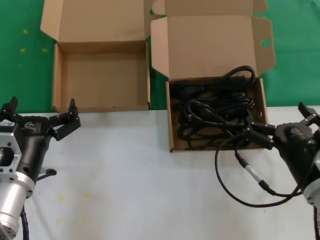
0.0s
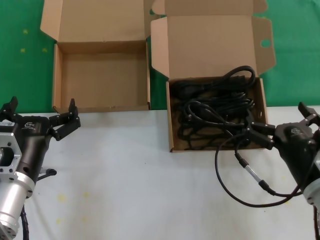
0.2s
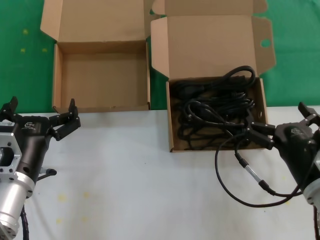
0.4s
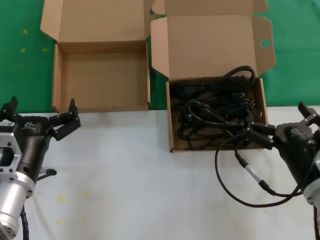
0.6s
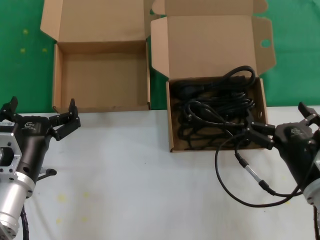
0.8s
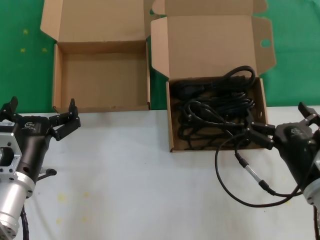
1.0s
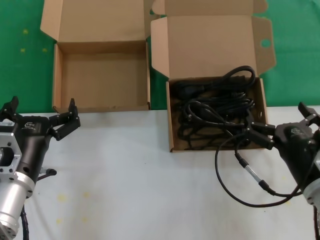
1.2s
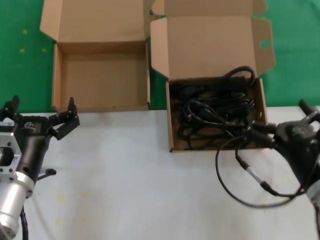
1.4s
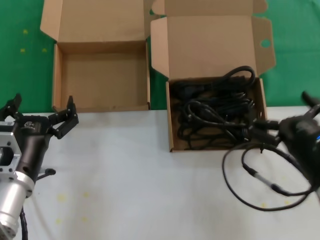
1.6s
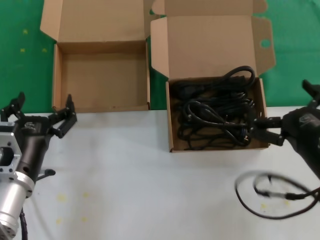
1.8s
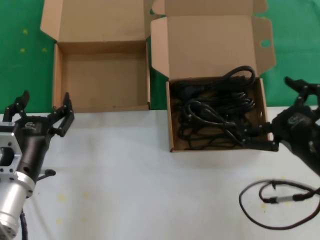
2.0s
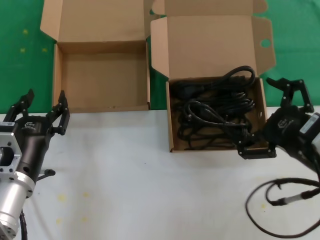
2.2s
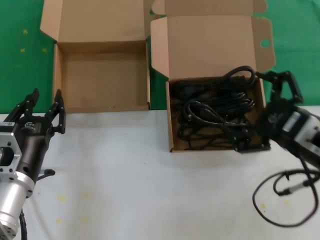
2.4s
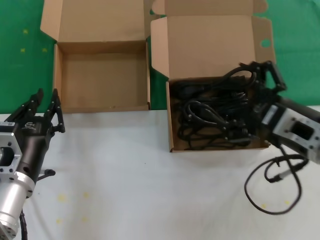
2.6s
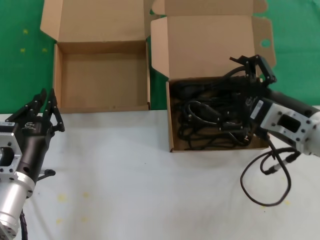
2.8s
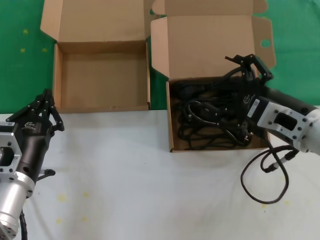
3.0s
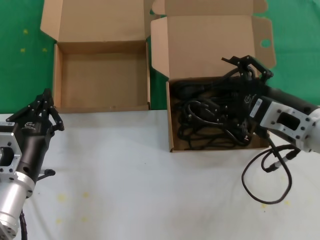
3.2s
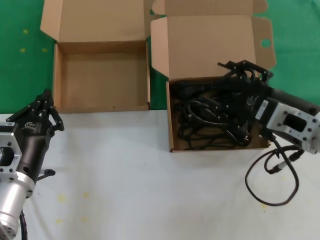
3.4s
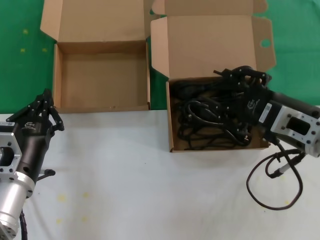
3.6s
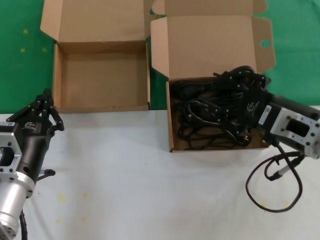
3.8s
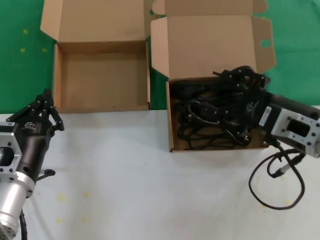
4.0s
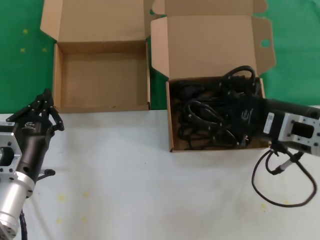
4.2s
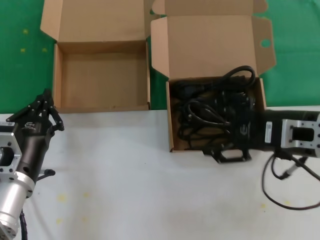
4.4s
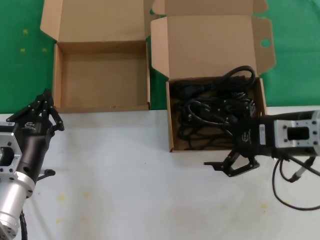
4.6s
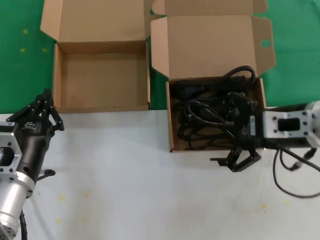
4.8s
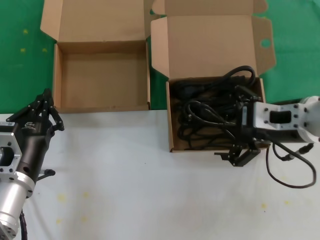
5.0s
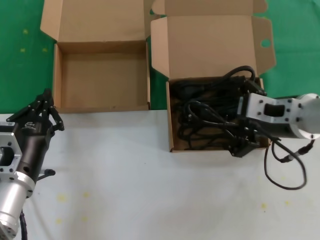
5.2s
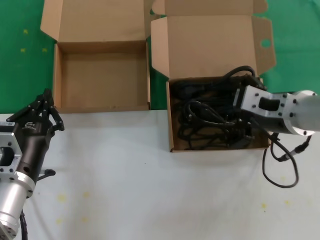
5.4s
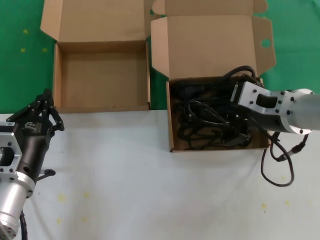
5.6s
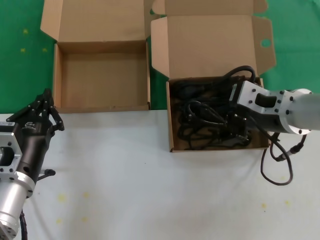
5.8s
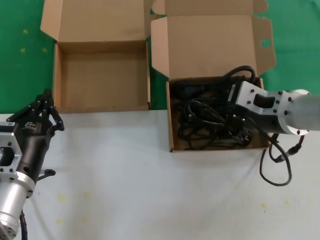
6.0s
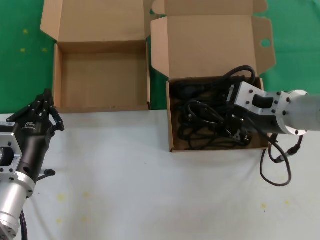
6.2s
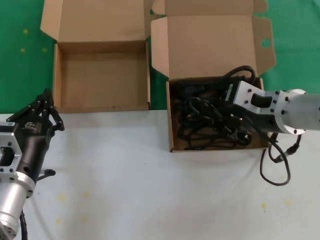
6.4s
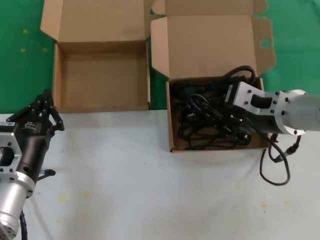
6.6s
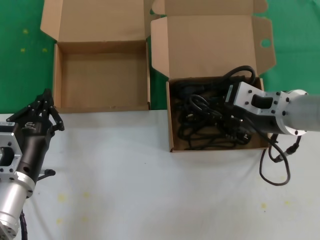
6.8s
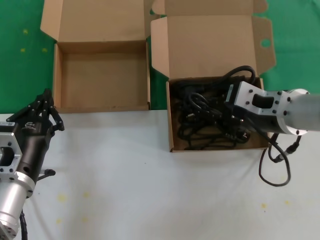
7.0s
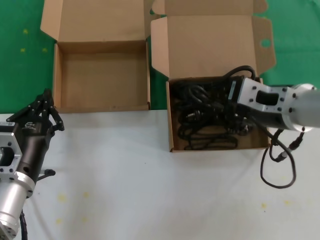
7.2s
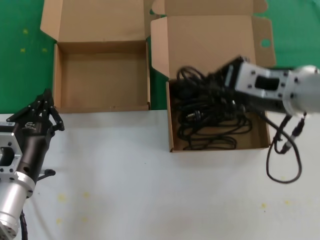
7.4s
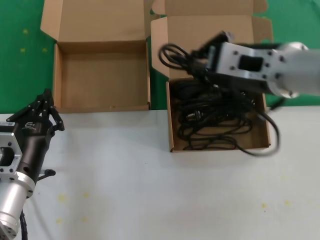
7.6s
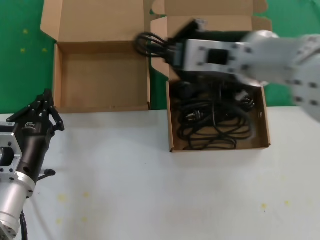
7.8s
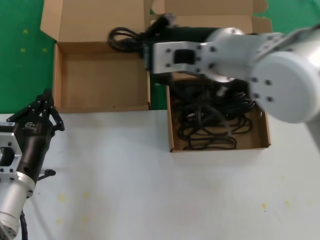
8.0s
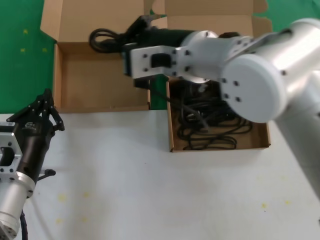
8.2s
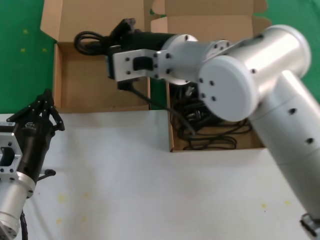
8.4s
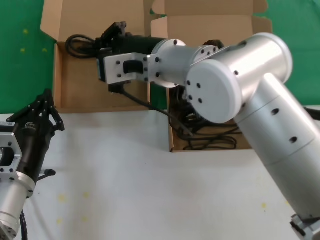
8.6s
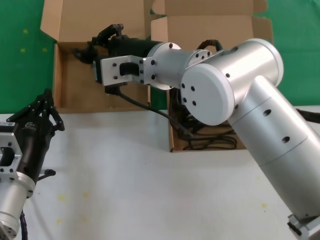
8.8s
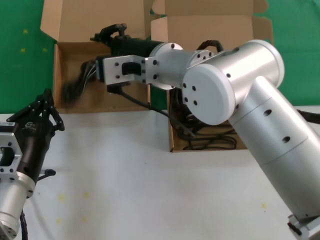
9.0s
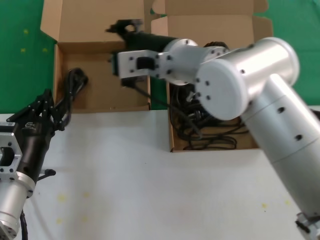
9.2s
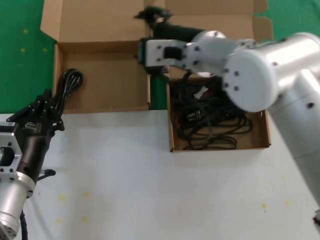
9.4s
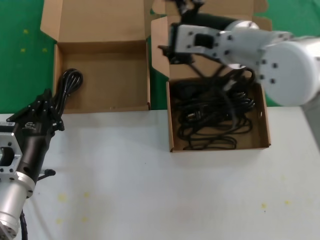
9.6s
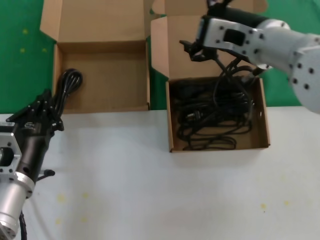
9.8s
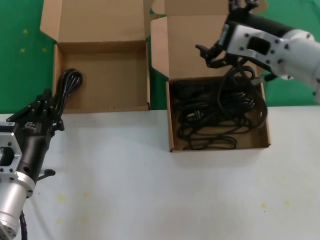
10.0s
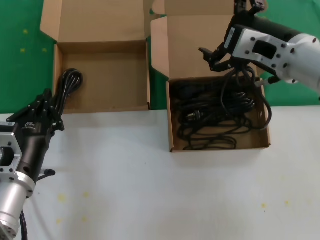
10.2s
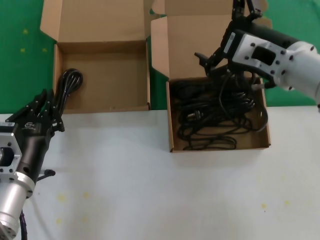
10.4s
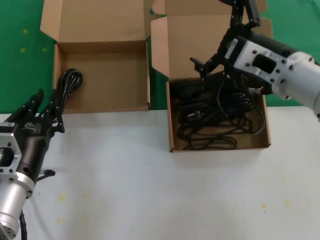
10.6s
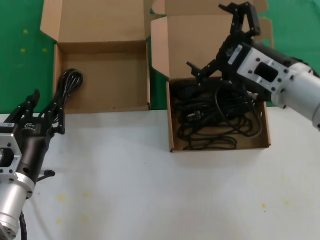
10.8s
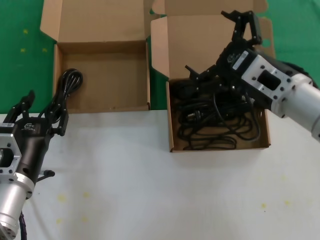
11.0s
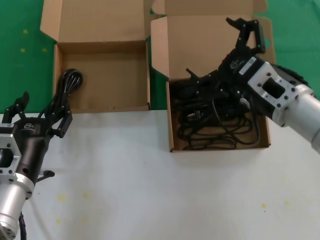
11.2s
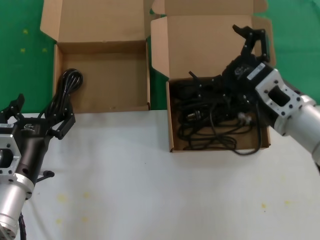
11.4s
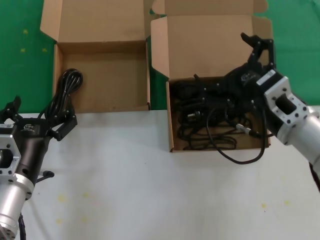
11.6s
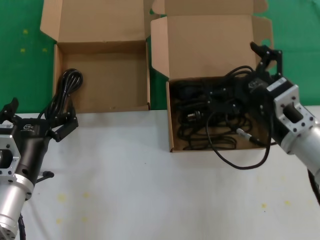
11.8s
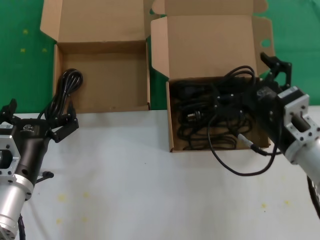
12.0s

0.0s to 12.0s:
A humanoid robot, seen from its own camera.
Task of the whole recording: take the parts from the box containing them and put them into an empty box.
Step, 0.0s to 6.6s: Grasp the data cable.
Step, 7.0s to 9.0s: Place the data cable in the another box.
0.0s to 1.6s: The hands stay close to where they were, moving slightly.
1.6s to 3.0s: The right hand is displaced upward and forward by roughly 10 cm.
4.4s to 6.0s: The right hand goes some 5 cm to the left.
6.0s to 7.6s: The right hand travels upward by about 10 cm.
7.6s to 9.0s: The right hand heads to the left and forward, covering roughly 15 cm.
9.0s to 10.4s: The right hand heads to the right, covering approximately 20 cm.
10.4s to 12.0s: The right hand is displaced downward by some 15 cm.

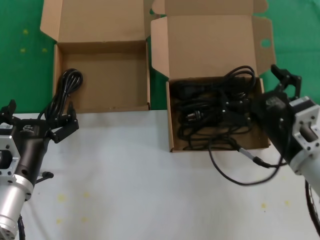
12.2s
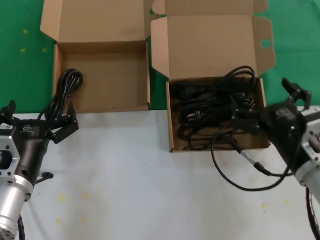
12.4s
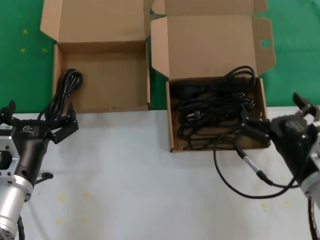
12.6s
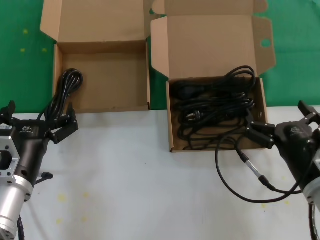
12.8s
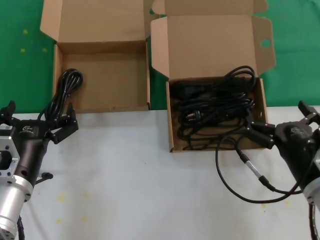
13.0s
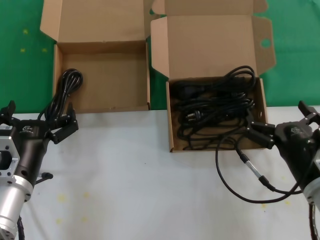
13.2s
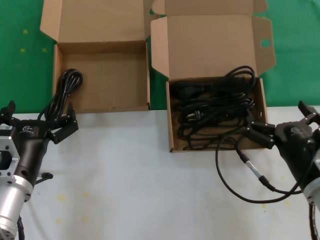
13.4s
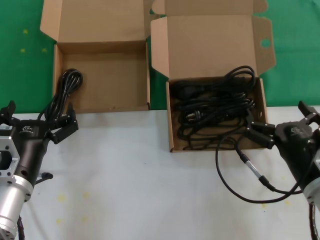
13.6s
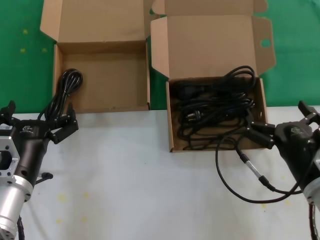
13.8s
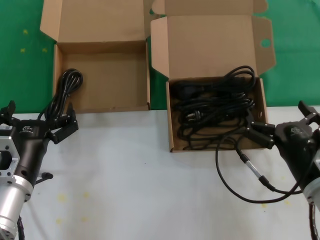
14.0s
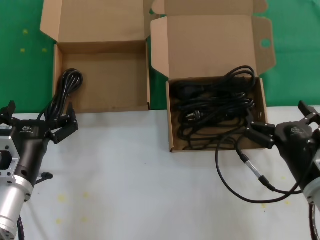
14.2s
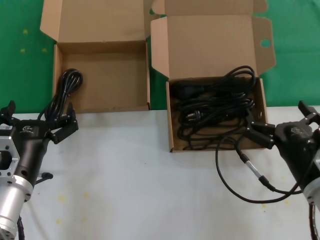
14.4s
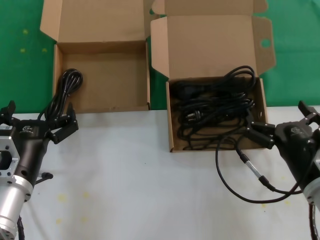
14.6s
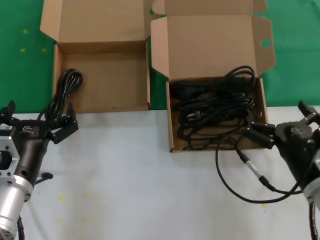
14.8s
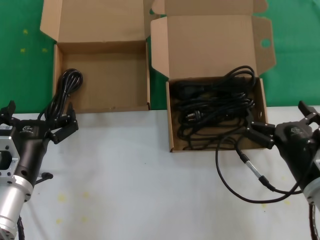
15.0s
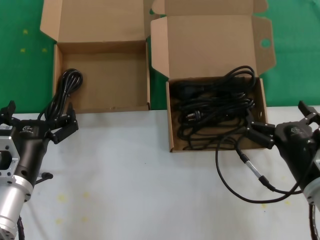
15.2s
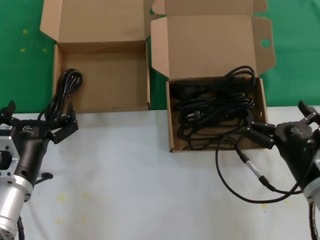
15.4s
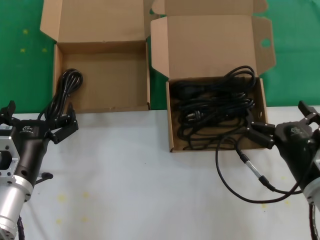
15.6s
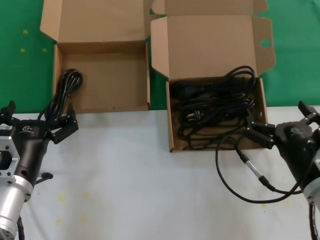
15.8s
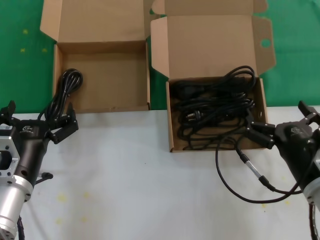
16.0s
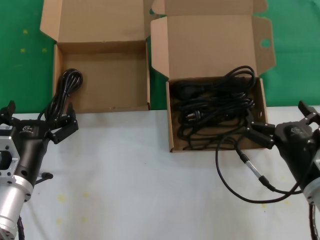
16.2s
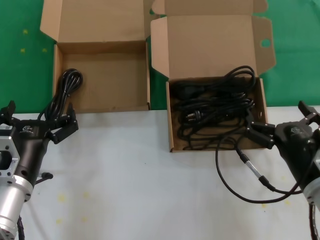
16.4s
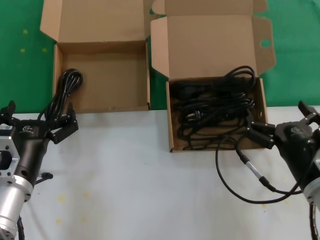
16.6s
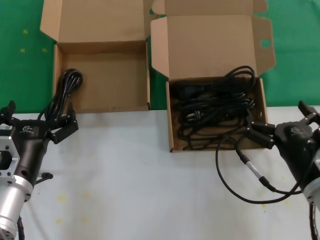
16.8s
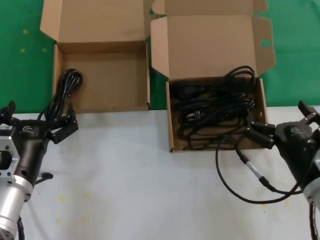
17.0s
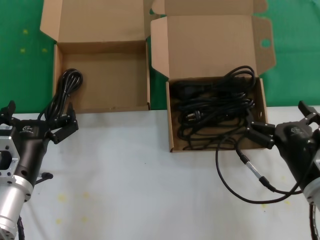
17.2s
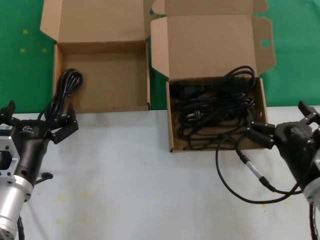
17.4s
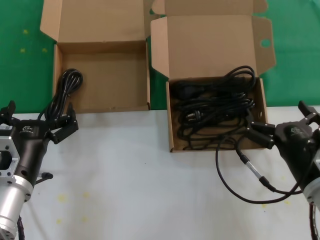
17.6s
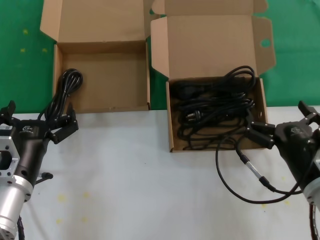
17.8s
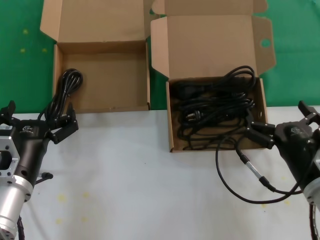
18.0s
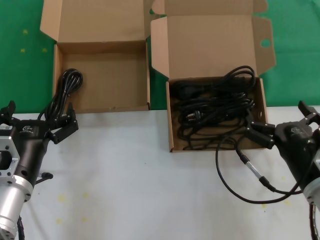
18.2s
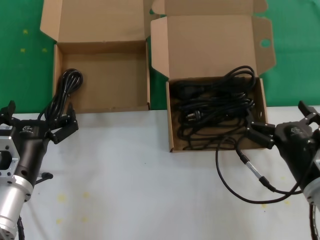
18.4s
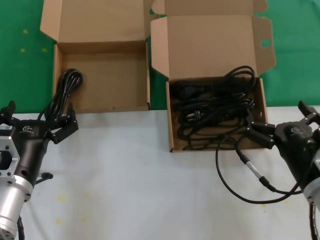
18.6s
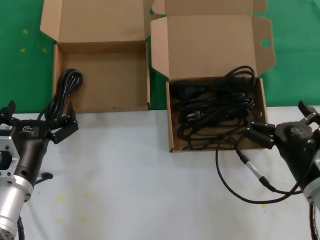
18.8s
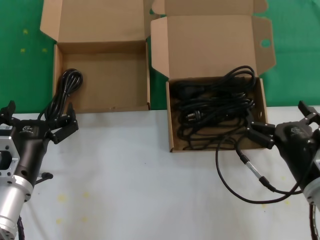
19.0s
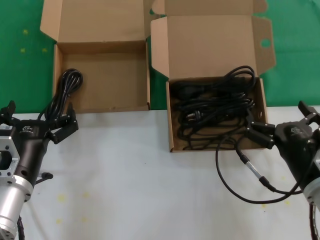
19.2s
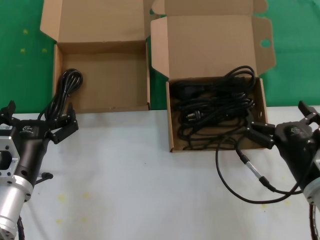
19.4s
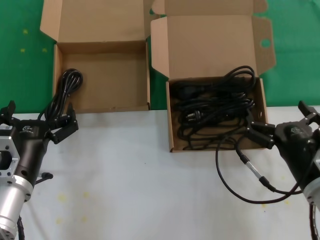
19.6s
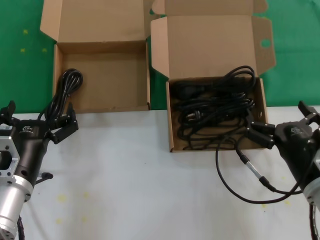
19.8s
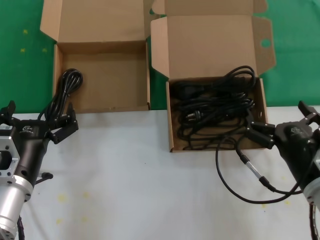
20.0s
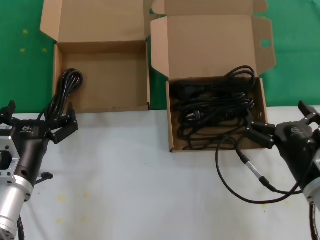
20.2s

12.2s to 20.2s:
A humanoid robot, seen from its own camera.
Task of the whole recording: take the parts from the box containing them and put them into an empty box.
12.2s to 13.8s: The right hand shifts by some 5 cm.
13.8s to 20.2s: The two hands keep their place.

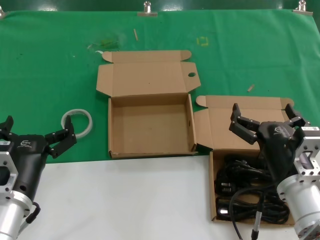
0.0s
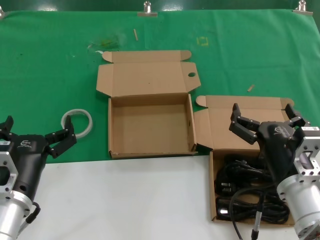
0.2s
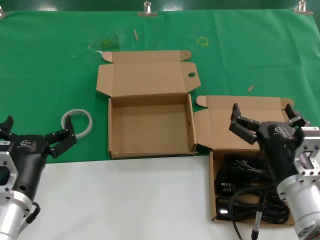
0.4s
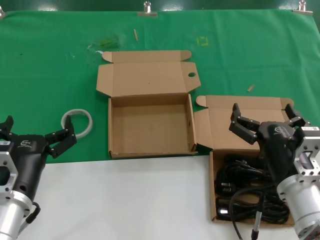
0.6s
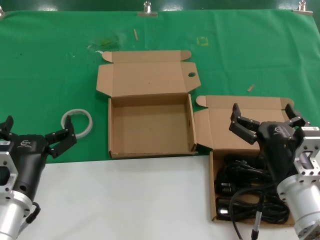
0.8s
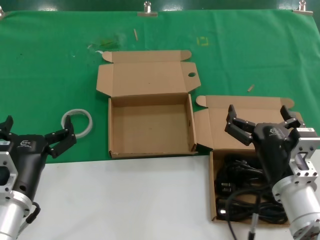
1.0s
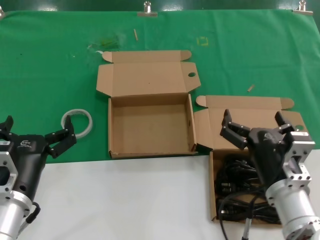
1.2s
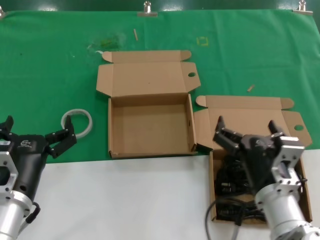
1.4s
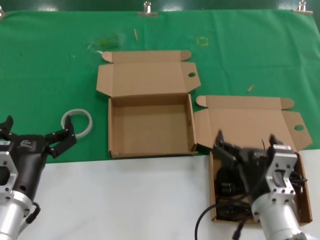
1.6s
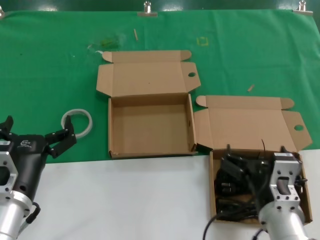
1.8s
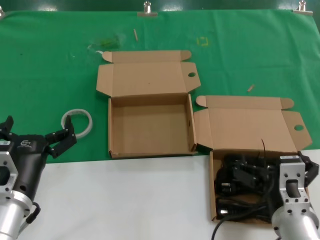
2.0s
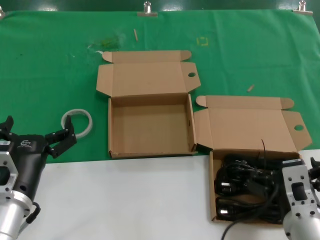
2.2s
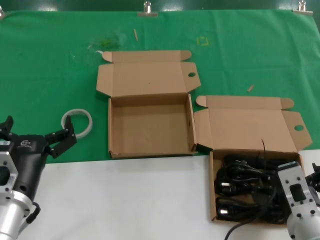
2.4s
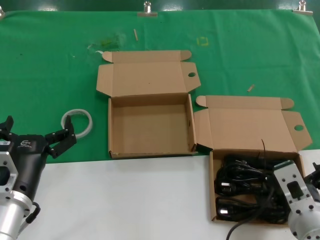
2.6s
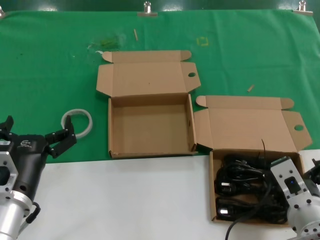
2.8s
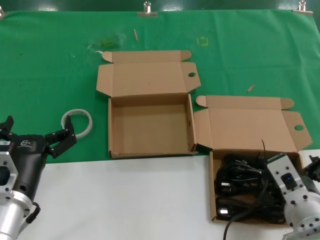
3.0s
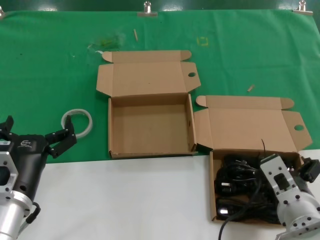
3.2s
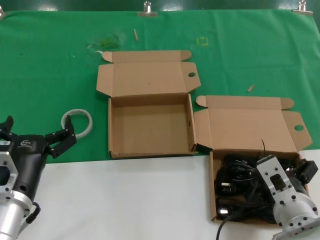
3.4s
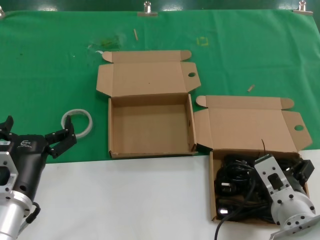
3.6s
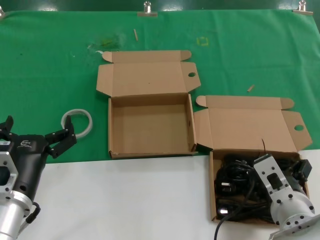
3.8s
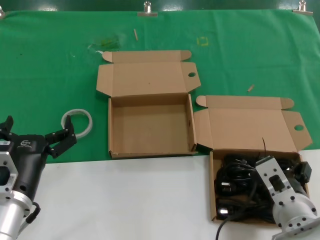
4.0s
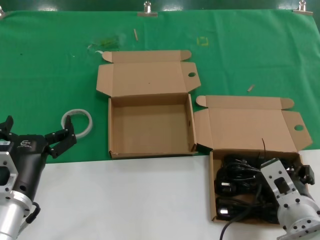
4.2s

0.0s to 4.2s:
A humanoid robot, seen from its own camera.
Task of the whole recording: take the parts from the box containing them and put them into an empty box.
0.0s to 1.4s: The hands stay close to where they were, moving slightly.
2.8s to 4.2s: The hands move only a little.
